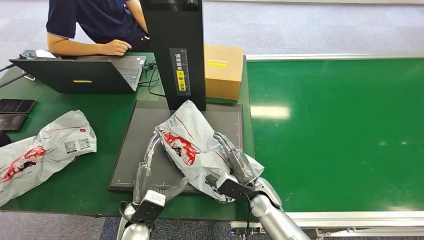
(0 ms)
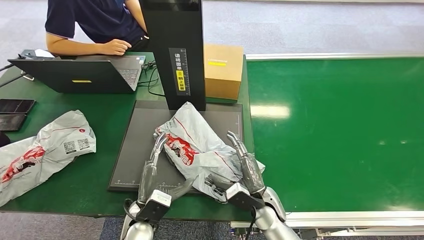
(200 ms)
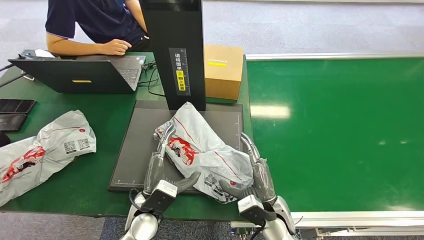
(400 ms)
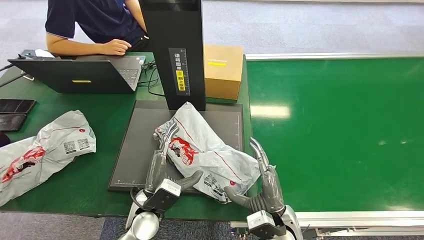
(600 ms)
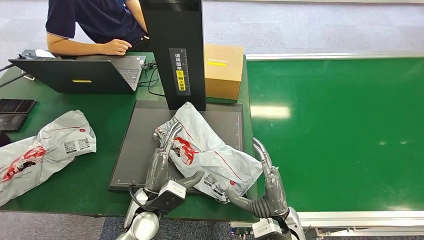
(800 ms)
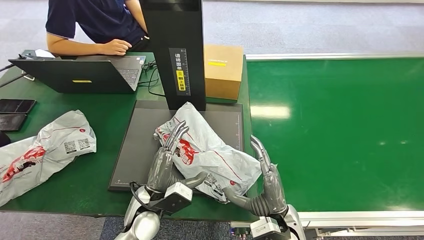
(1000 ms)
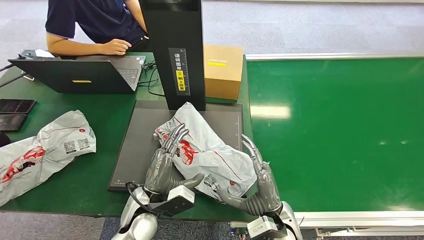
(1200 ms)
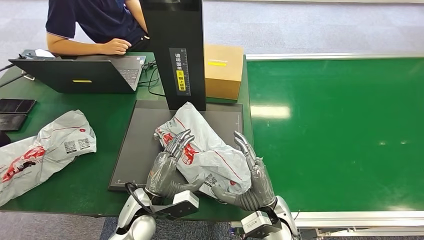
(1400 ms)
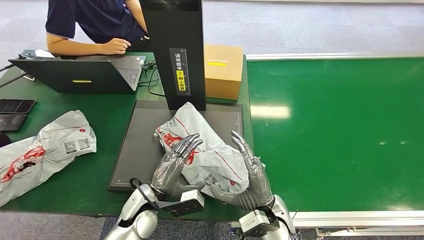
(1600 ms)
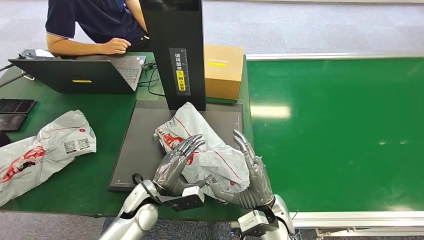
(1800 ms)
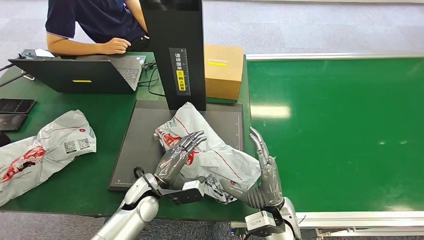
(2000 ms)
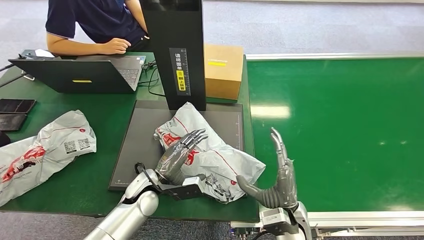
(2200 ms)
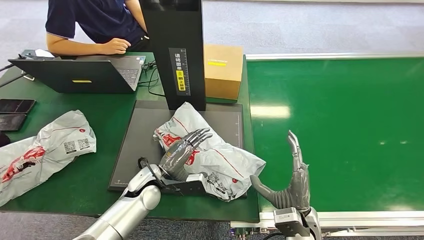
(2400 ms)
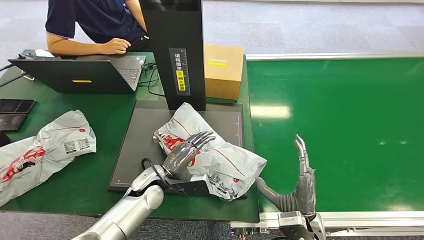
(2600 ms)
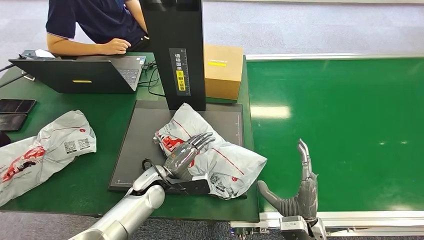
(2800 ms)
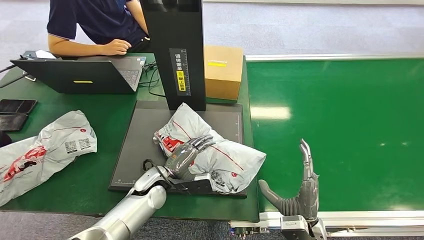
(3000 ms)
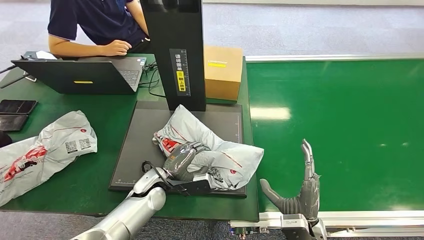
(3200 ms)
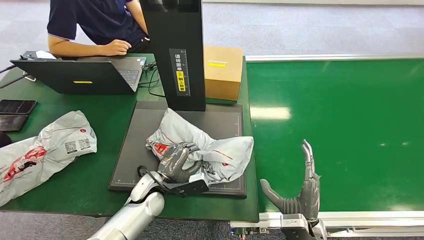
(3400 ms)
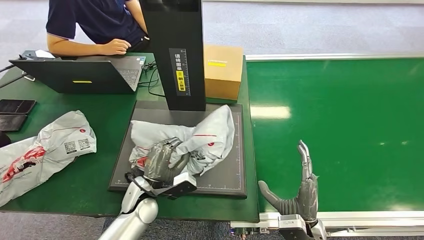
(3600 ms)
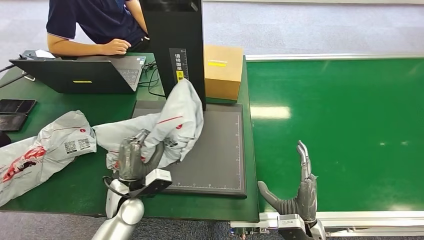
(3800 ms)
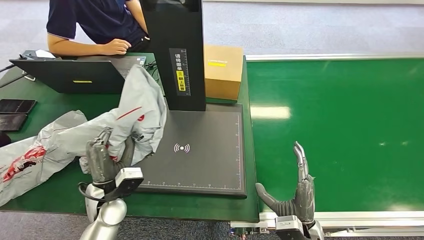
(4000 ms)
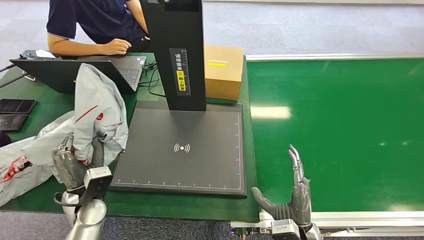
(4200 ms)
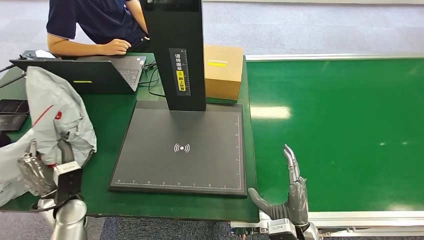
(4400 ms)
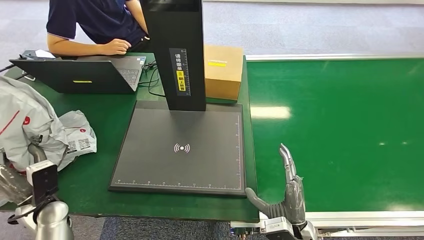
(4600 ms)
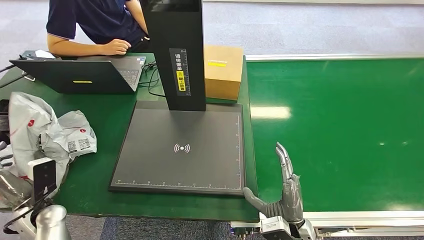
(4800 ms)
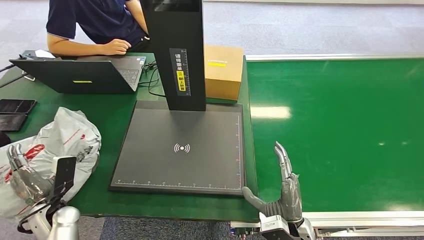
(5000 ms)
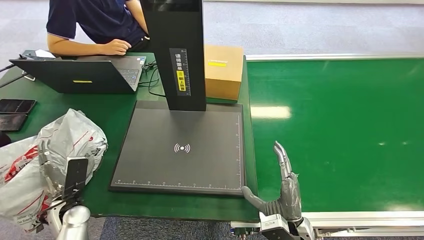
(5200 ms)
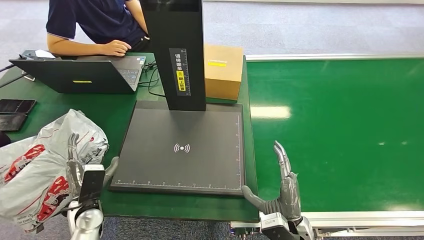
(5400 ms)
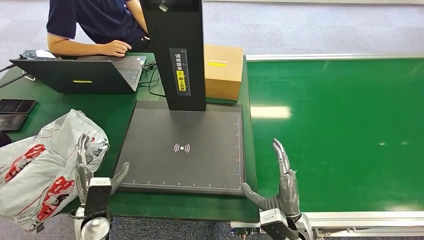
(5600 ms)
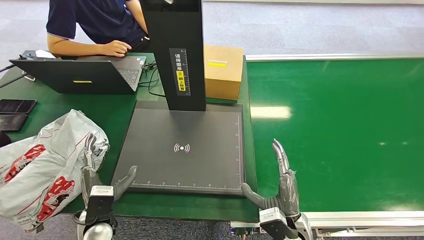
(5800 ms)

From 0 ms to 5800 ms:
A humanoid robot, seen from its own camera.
Step, from 1400 ms to 4600 ms: Pick up the package from the inbound machine.
Step, from 4800 ms to 5800 ms: Place the package into the parcel locker.
From 0 ms to 1400 ms: The right hand is displaced backward and upward by some 10 cm.
From 1400 ms to 2800 ms: The left hand is displaced forward by some 10 cm, while the right hand heads to the right, covering roughly 5 cm.
From 4400 ms to 5800 ms: The left hand goes about 10 cm to the right.

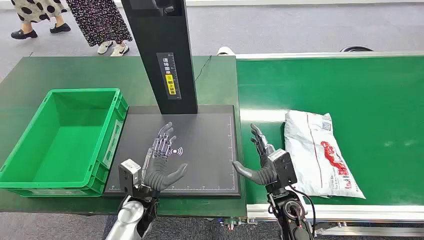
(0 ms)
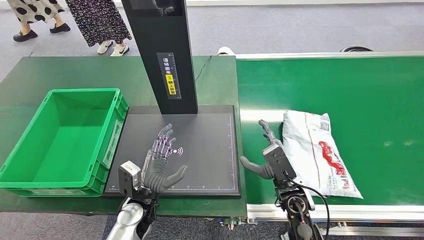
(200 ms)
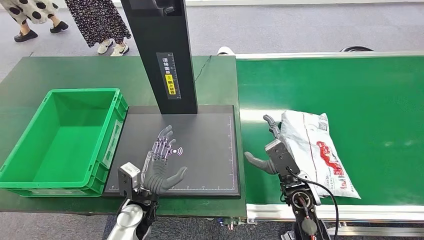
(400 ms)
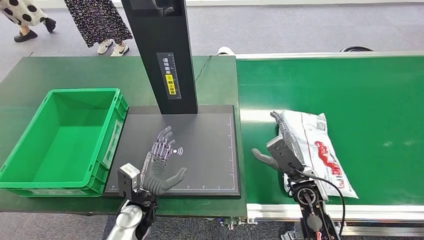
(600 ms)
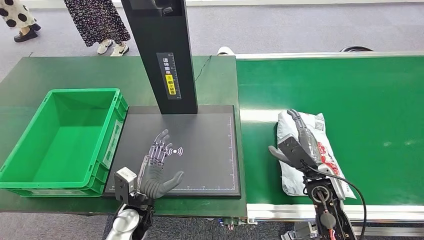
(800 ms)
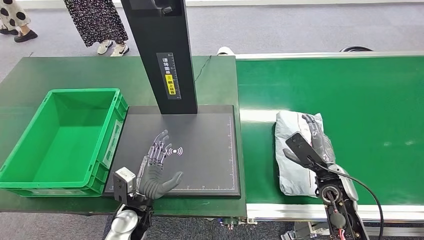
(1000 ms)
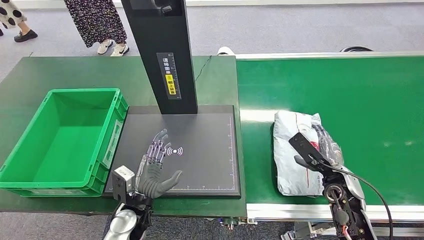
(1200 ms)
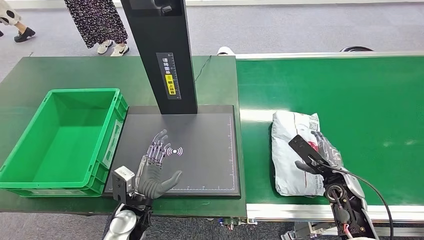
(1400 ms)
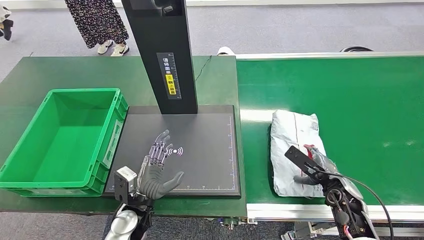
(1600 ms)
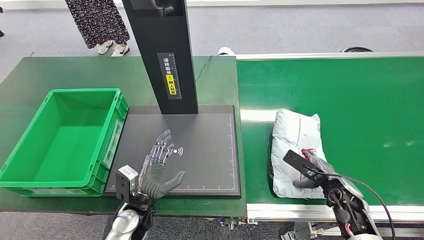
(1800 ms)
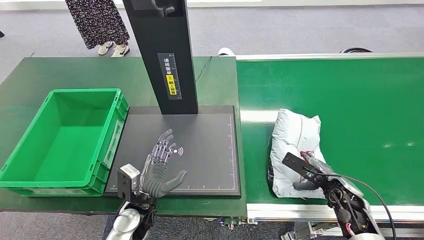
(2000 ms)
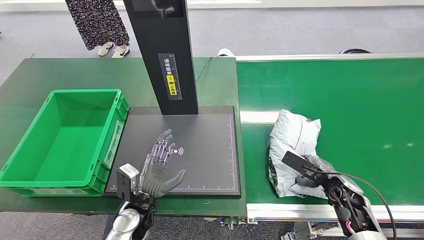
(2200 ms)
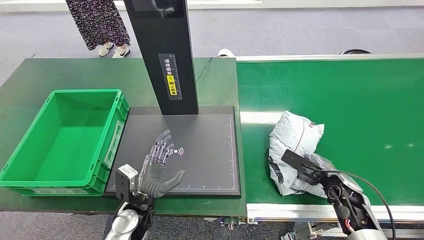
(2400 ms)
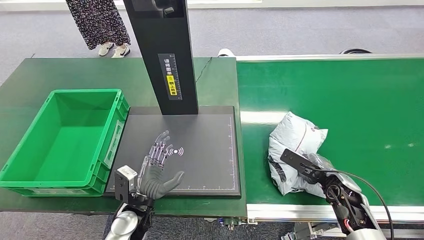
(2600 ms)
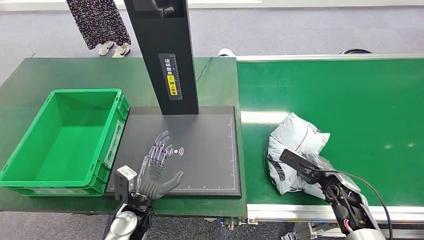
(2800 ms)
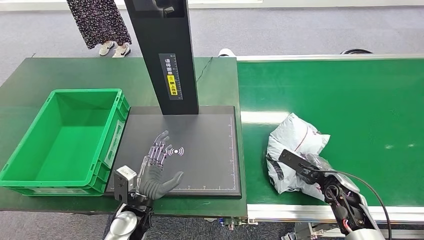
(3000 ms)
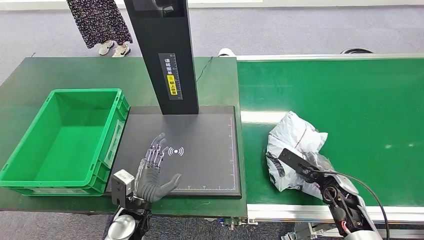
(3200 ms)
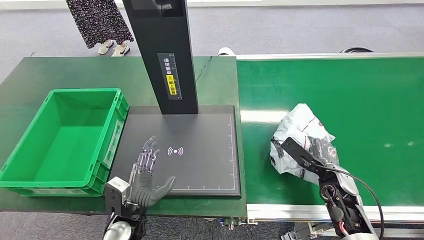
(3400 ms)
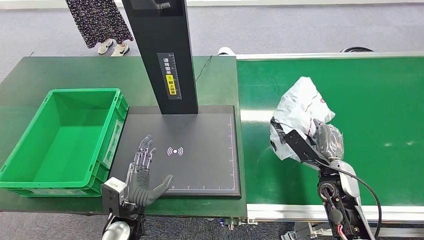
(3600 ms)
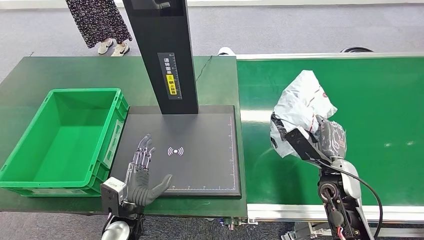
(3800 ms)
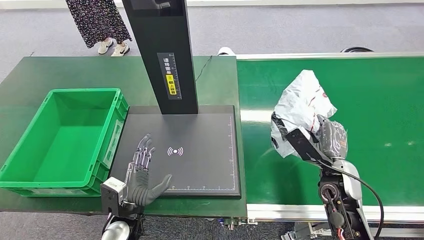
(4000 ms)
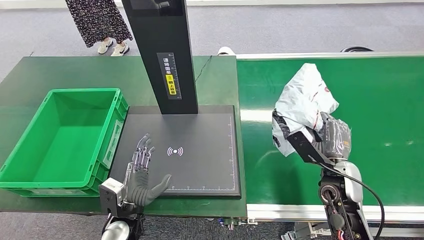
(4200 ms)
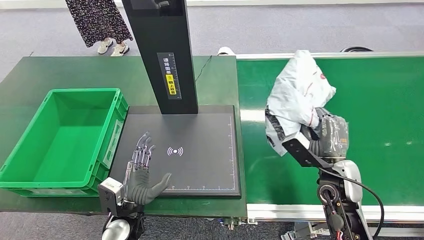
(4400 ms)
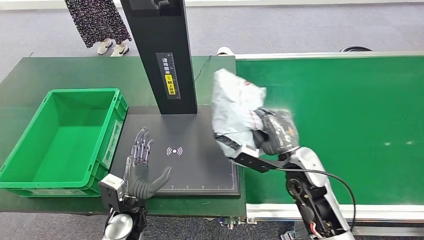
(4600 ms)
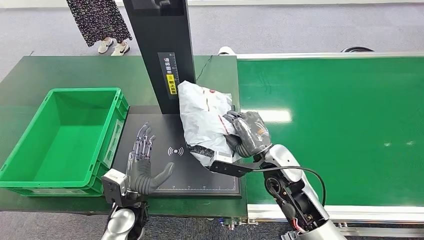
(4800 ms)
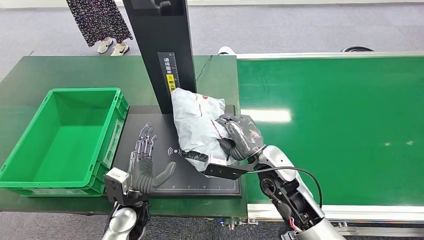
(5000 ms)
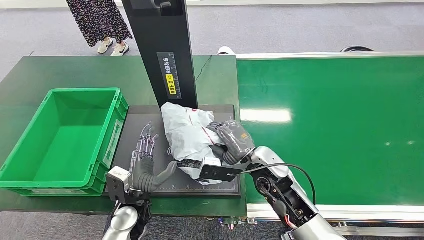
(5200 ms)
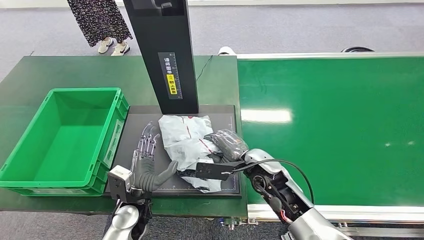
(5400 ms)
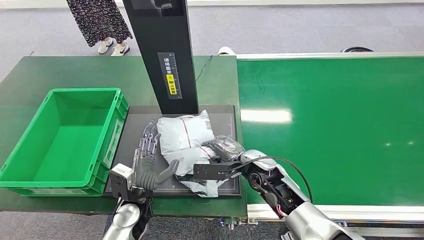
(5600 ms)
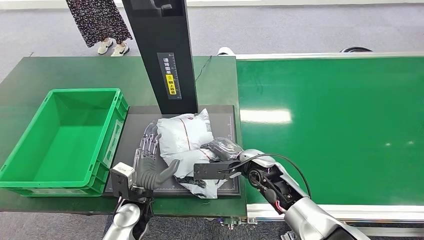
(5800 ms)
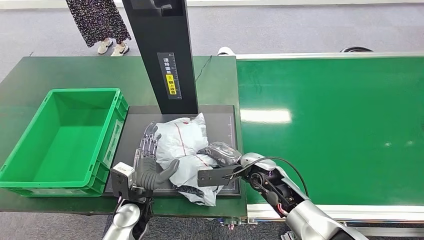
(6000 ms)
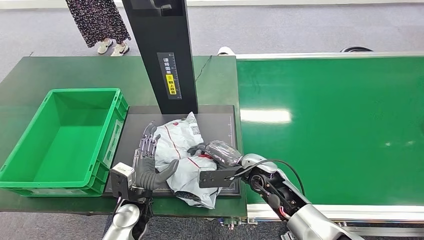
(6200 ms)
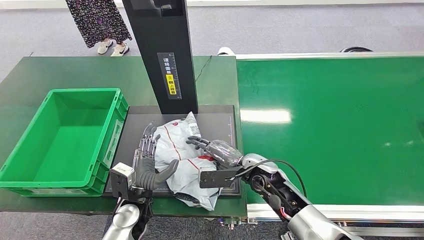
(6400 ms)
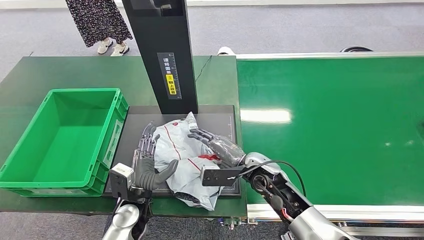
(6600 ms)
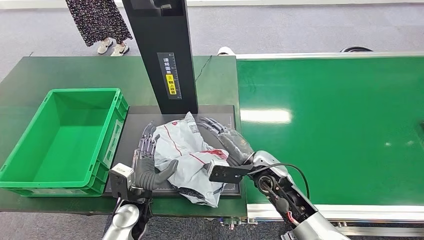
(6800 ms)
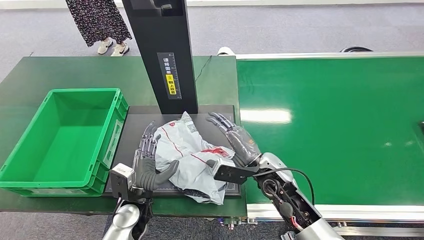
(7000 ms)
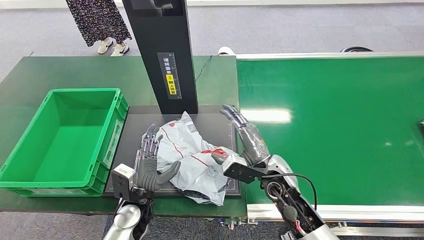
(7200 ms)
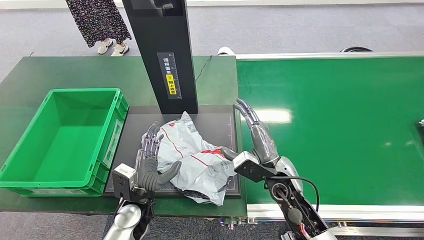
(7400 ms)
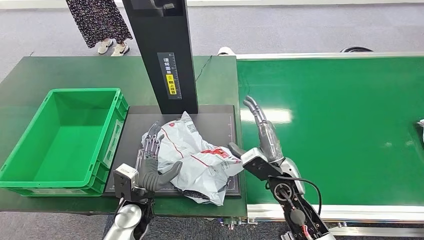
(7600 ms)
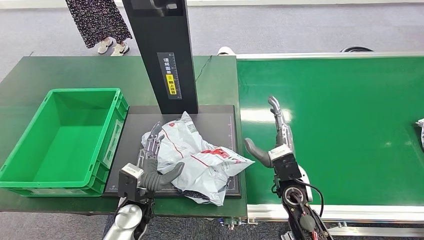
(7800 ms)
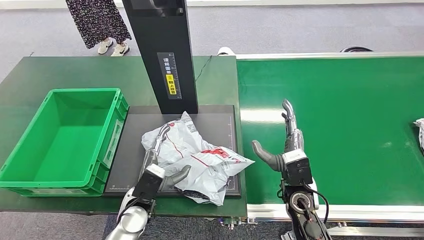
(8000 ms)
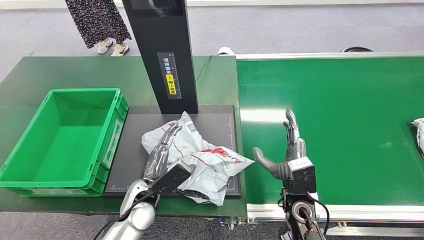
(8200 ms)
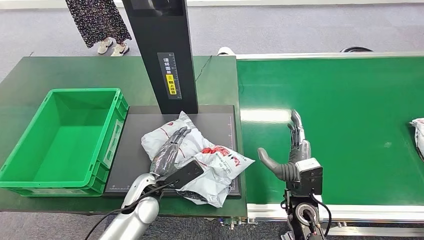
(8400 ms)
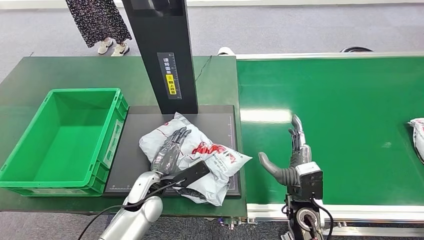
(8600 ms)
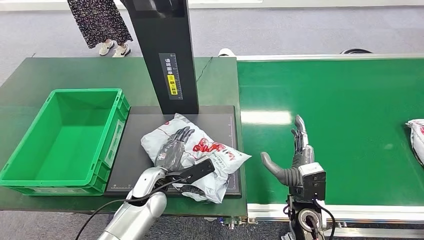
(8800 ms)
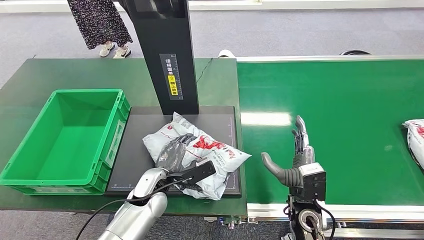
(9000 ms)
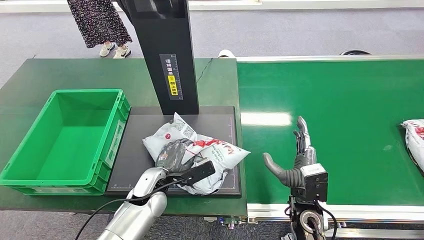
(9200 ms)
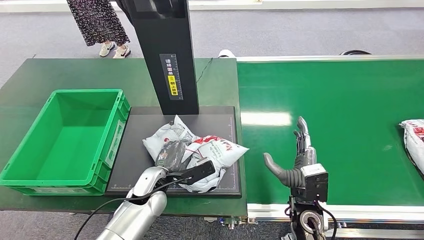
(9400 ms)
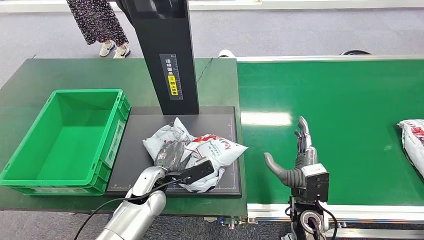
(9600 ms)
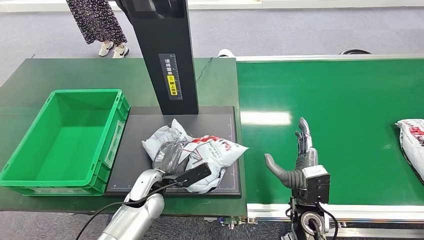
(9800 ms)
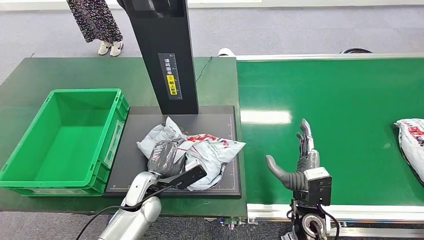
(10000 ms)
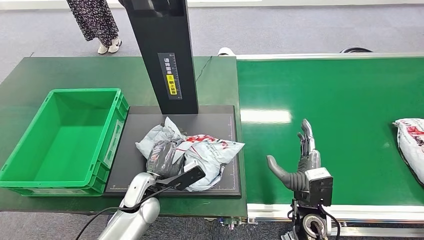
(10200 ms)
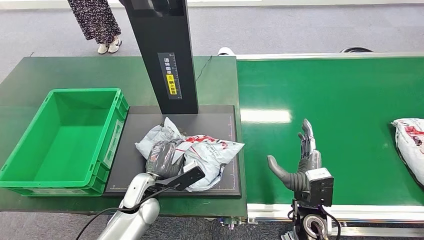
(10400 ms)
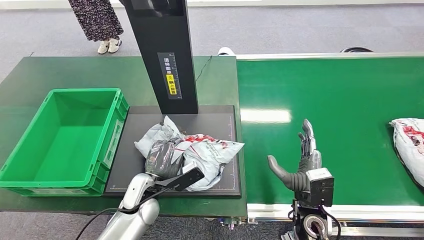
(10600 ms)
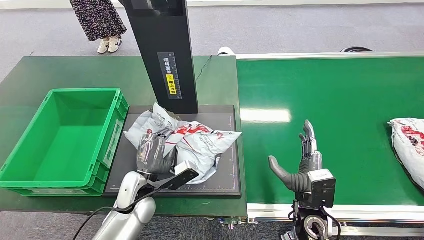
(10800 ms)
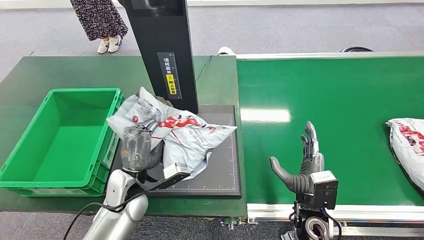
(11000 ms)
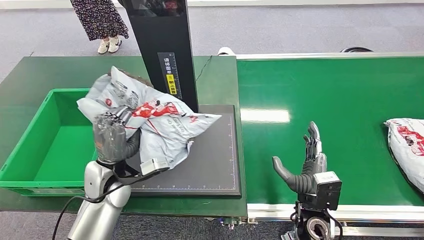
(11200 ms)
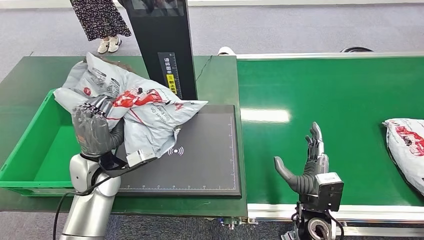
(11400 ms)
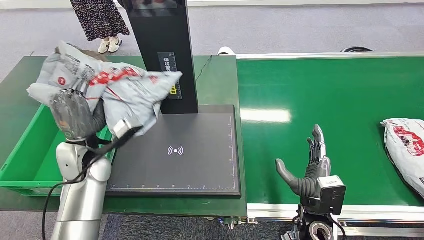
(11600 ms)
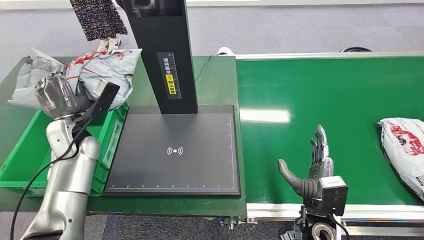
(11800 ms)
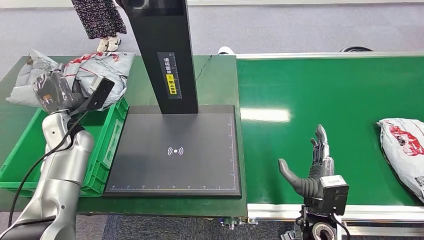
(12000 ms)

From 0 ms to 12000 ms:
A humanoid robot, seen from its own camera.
Step, from 0 ms to 4000 ms: Pick up the package from the conveyor belt.
Step, from 4200 ms to 7200 ms: Place the package onto the inbound machine.
Step, from 7400 ms to 11400 ms: Pick up the package from the inbound machine.
From 1600 ms to 3000 ms: The hands make only small movements.
From 6000 ms to 7600 ms: The right hand shifts by about 5 cm.
